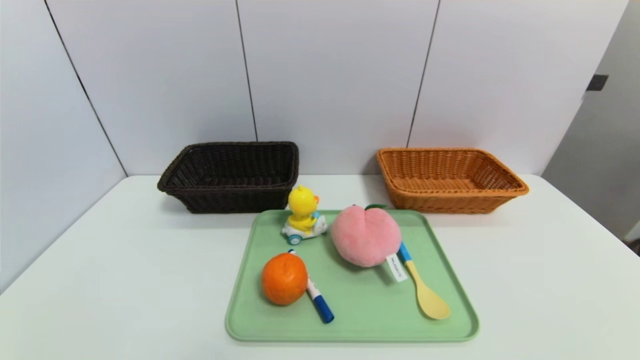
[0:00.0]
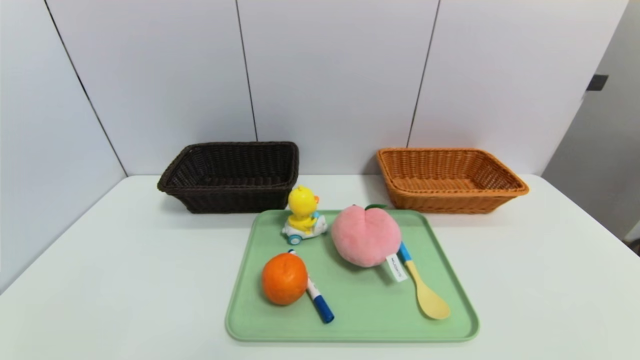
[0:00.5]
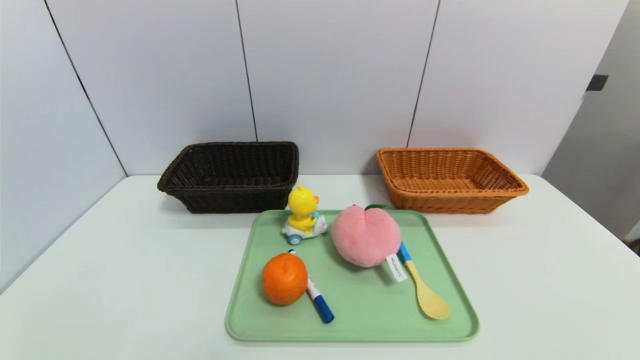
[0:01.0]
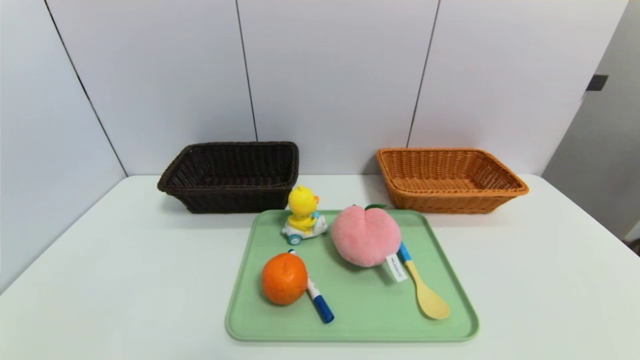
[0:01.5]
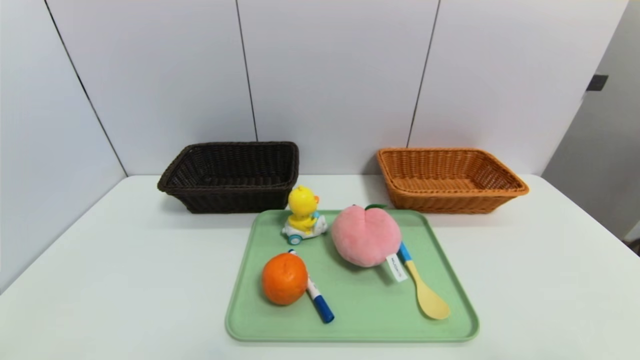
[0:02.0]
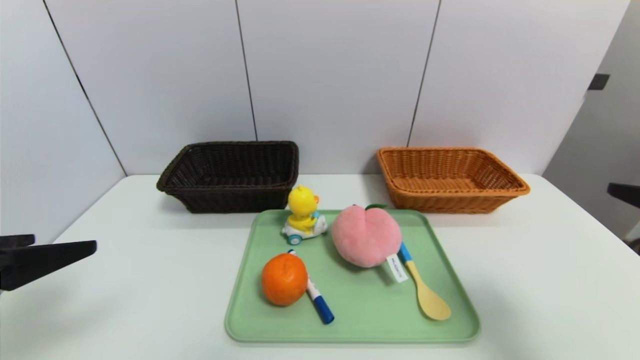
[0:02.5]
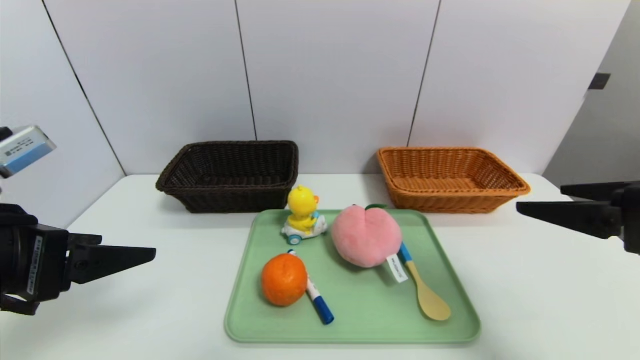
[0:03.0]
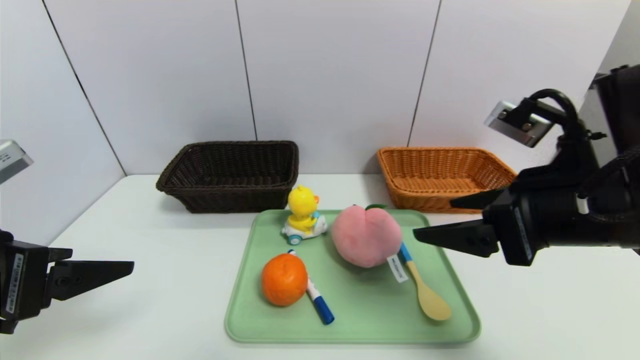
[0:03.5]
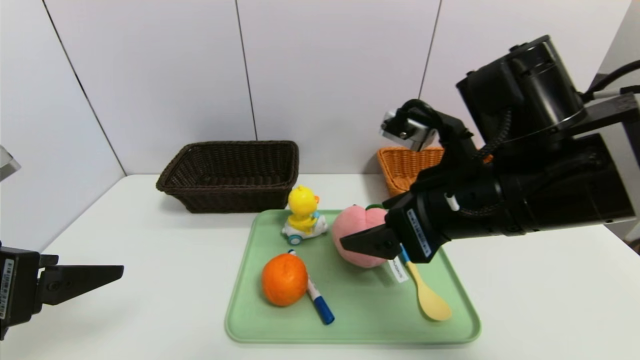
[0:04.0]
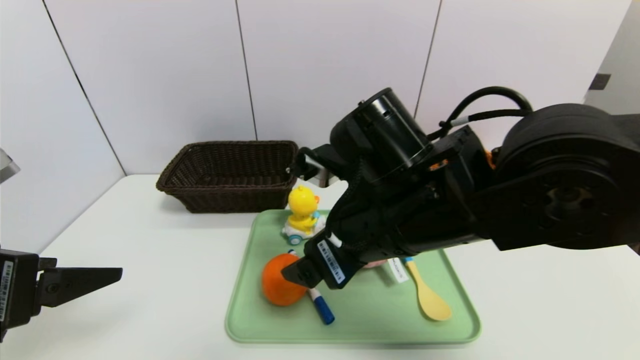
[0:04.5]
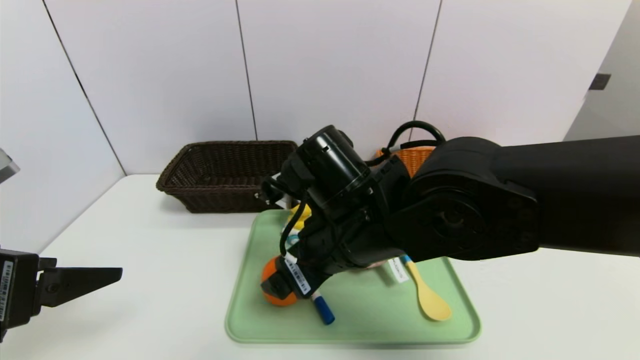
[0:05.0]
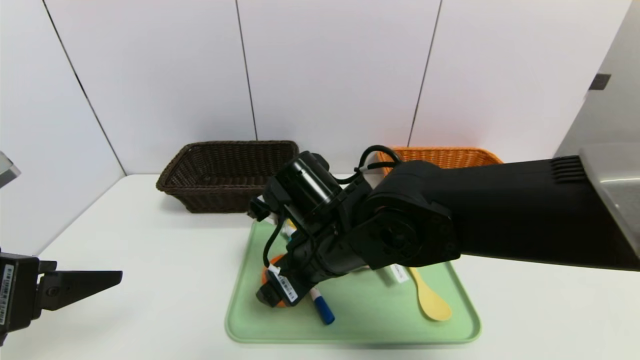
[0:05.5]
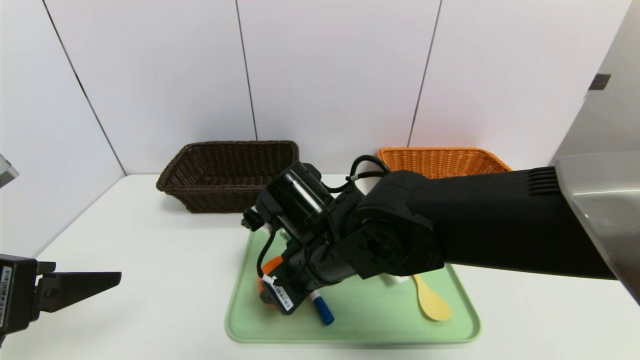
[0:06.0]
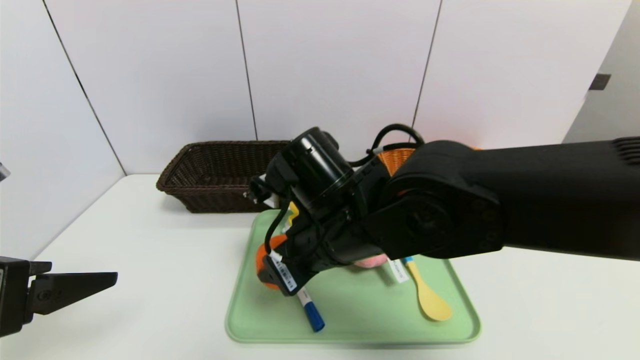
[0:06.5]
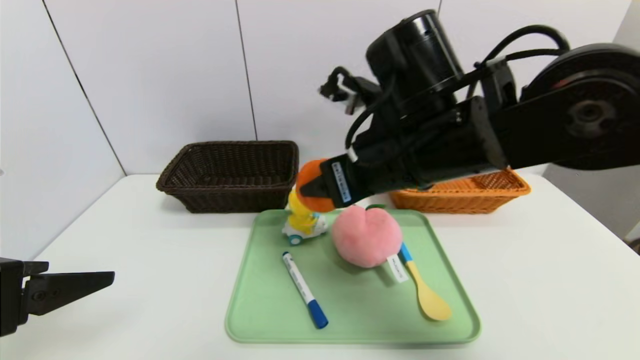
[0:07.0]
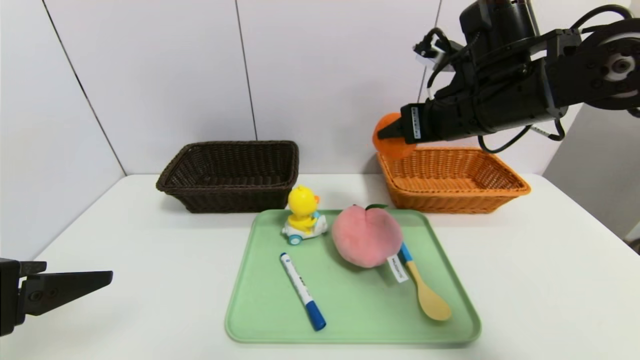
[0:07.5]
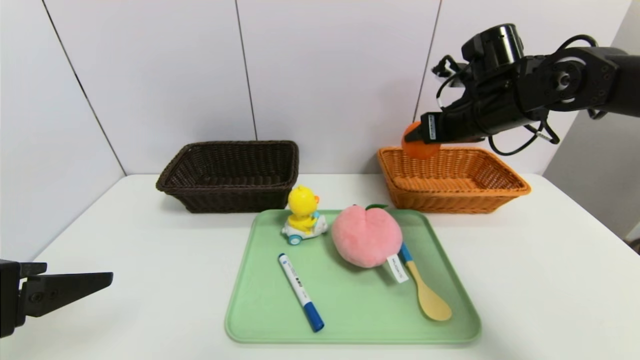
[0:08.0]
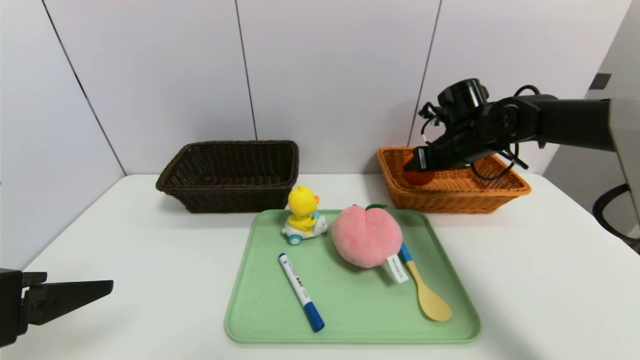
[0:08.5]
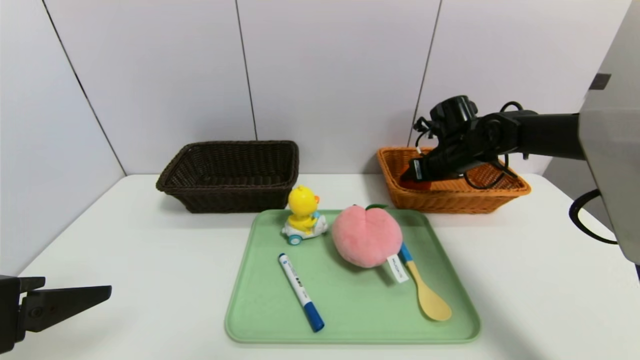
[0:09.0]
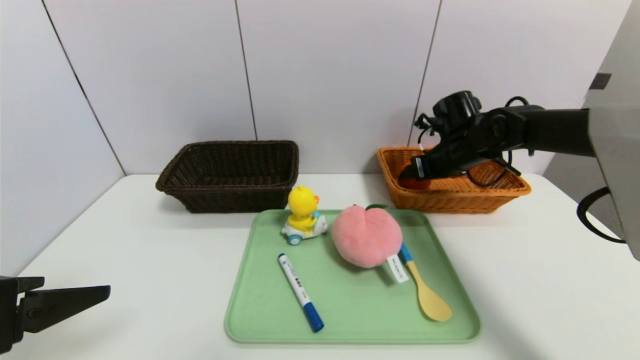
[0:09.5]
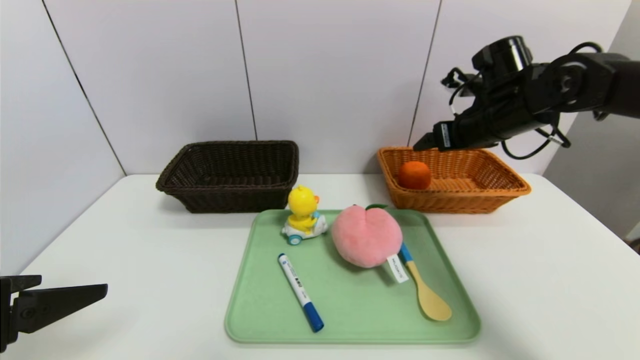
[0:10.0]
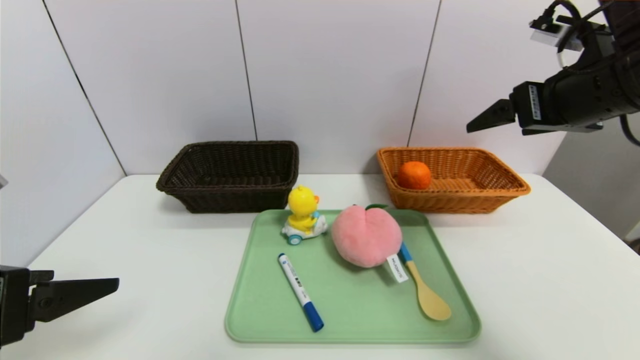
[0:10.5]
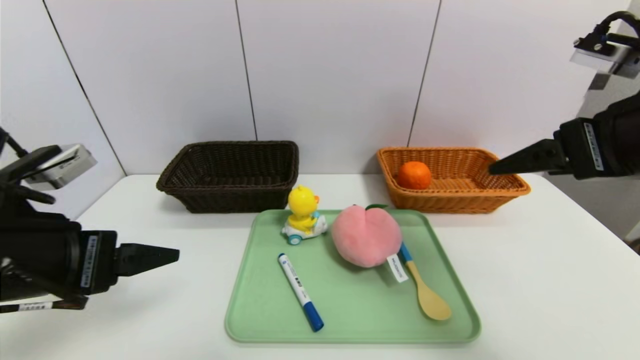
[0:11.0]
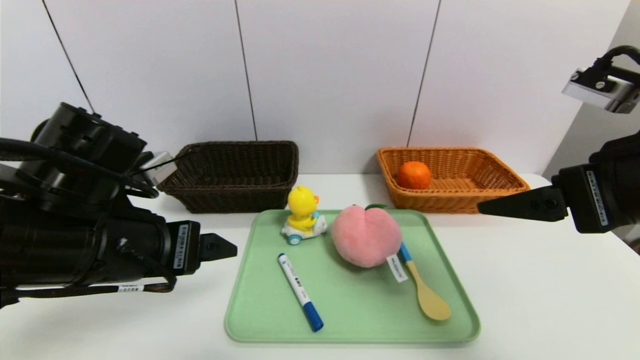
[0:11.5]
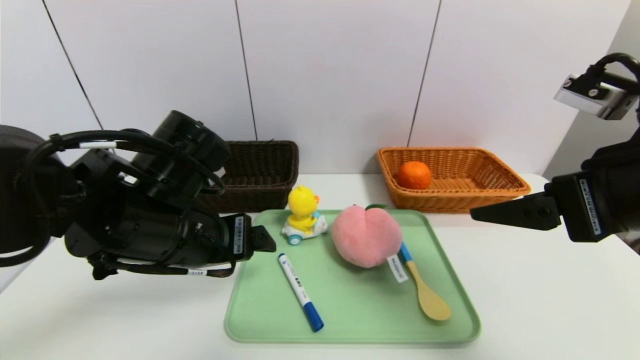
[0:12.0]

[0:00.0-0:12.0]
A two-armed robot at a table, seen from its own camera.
Task of the whole recording: place the food in the right basket with the right gripper, and place the non food items in the left basket with the left gripper.
Step, 0:00.0 to 0:09.5: Grasp the orange and put it in the right basket.
0:02.0 to 0:04.0: The left gripper heads forward, covering about 15 cm. Meanwhile the right gripper heads forward and to the left, covering some 30 cm.
0:04.0 to 0:06.0: The right gripper moves to the left and downward, about 15 cm, and closes up.
0:06.0 to 0:08.0: The right gripper heads to the right, forward and upward, covering about 30 cm.
0:08.0 to 0:10.0: The right gripper moves roughly 10 cm downward and comes back, and opens up.
0:10.0 to 0:12.0: The left gripper shifts roughly 20 cm to the right and forward, while the right gripper heads backward, covering roughly 25 cm.

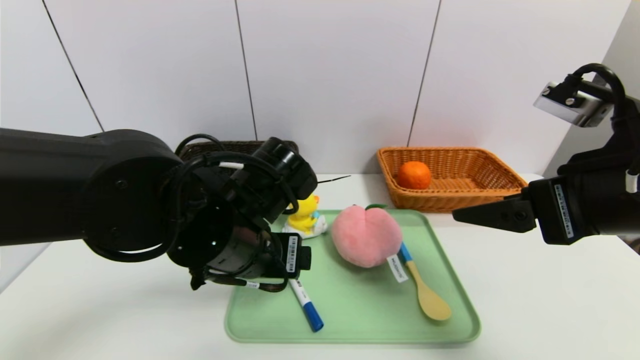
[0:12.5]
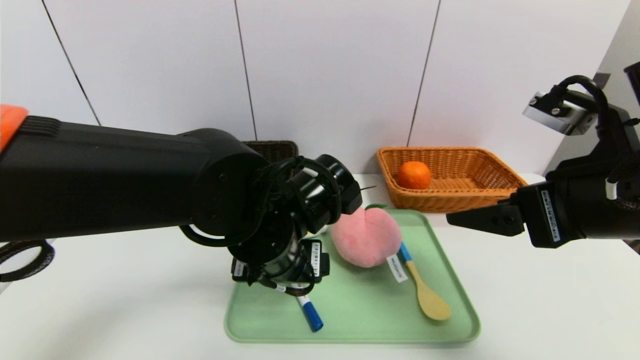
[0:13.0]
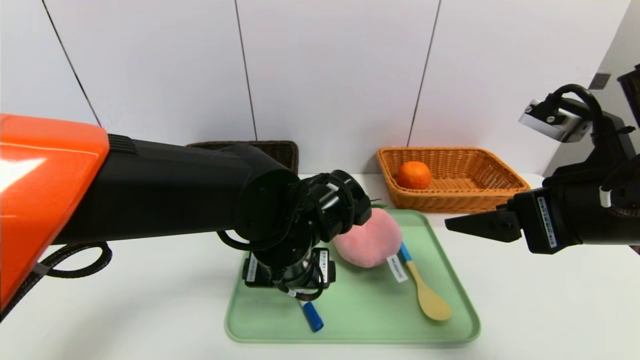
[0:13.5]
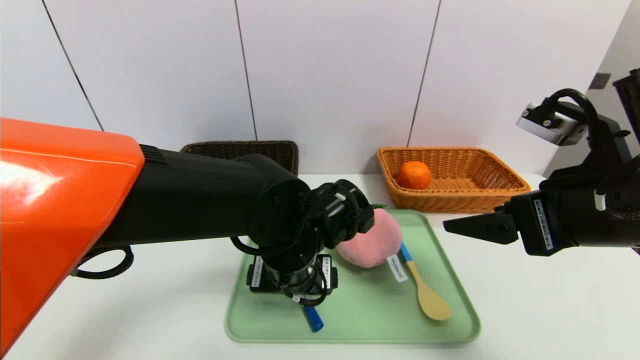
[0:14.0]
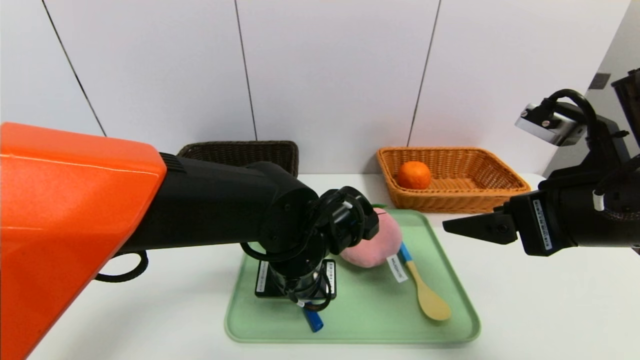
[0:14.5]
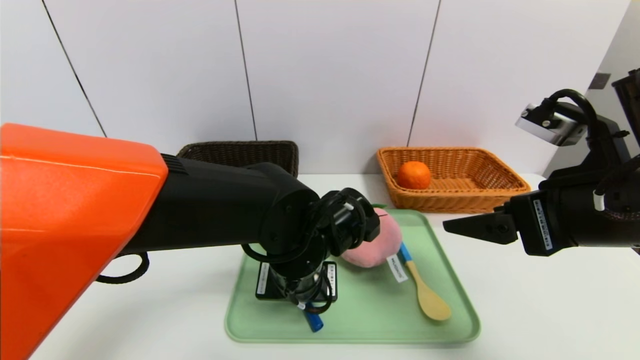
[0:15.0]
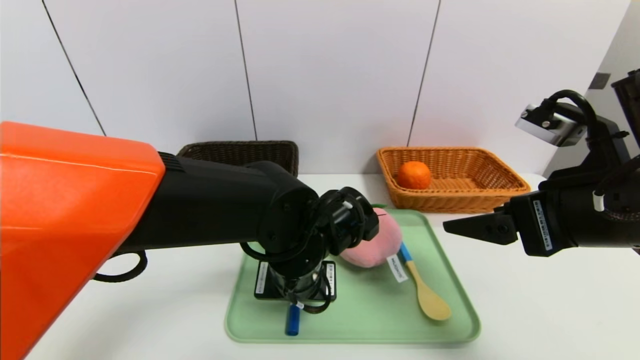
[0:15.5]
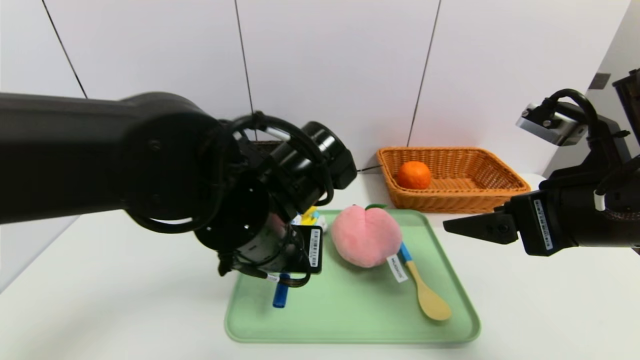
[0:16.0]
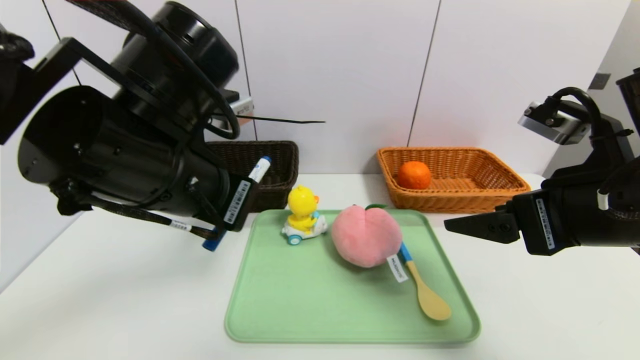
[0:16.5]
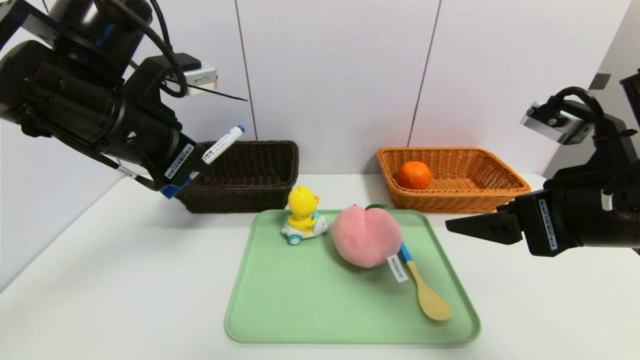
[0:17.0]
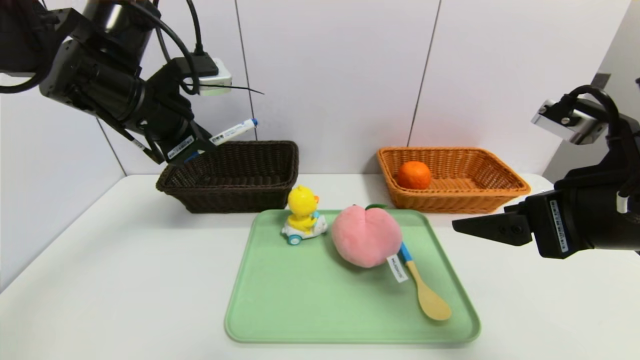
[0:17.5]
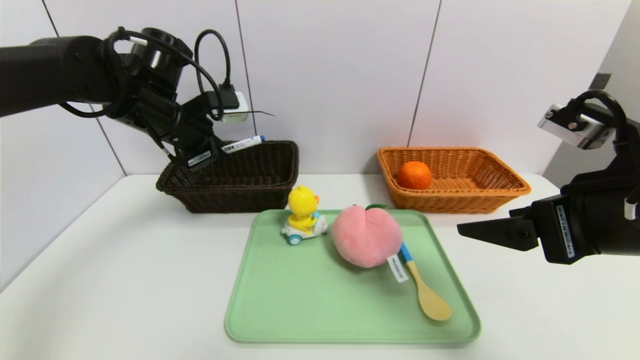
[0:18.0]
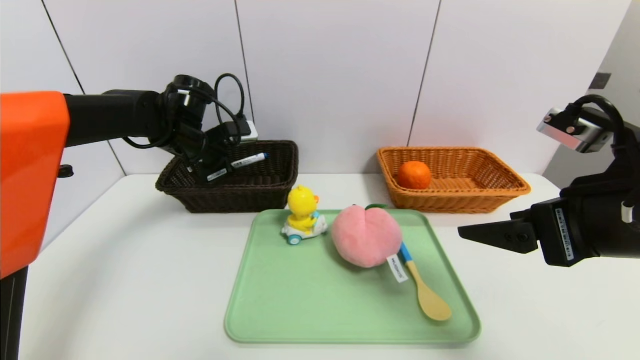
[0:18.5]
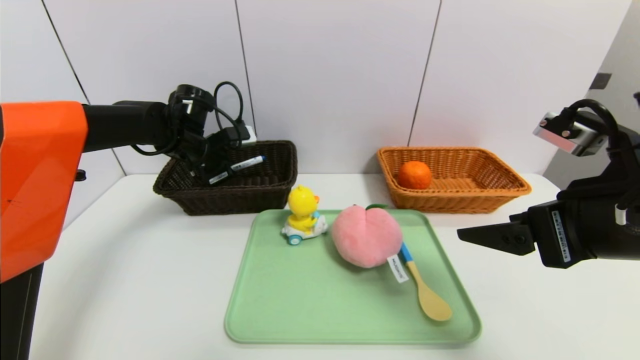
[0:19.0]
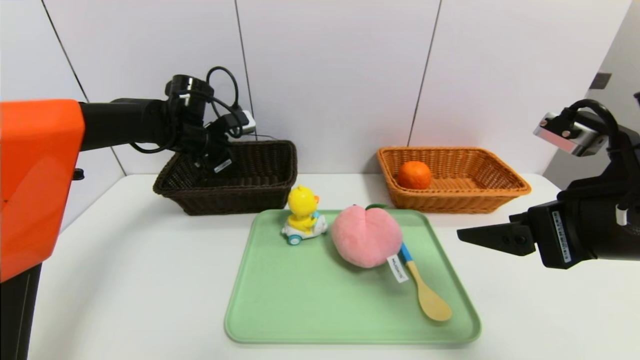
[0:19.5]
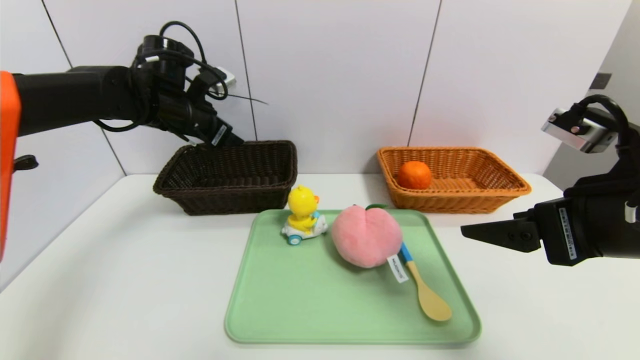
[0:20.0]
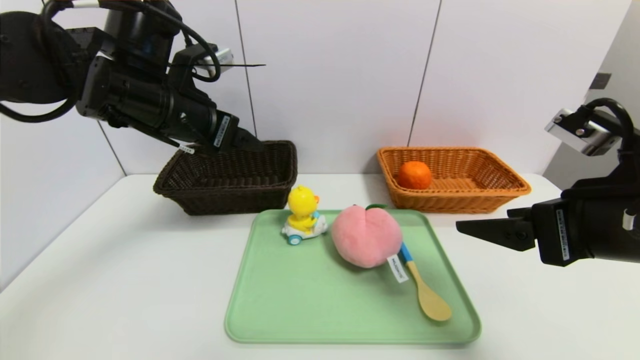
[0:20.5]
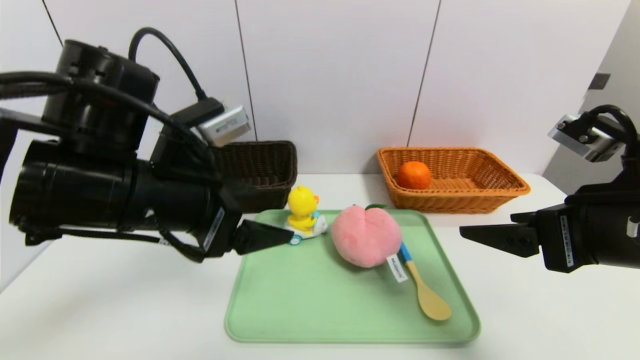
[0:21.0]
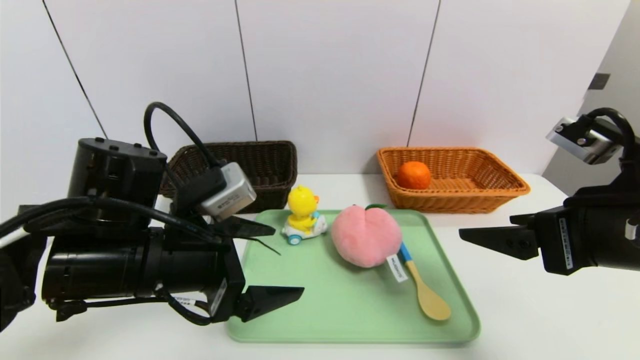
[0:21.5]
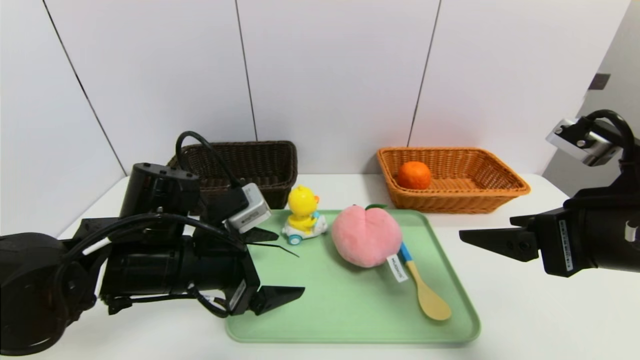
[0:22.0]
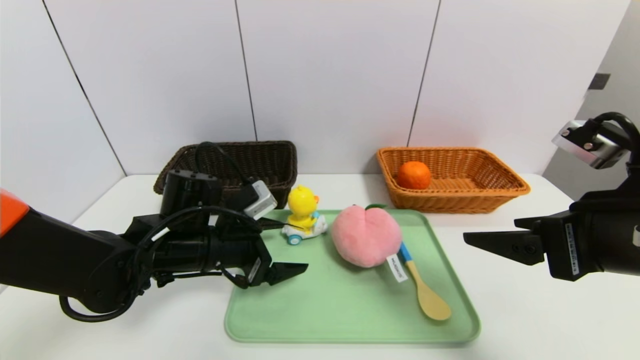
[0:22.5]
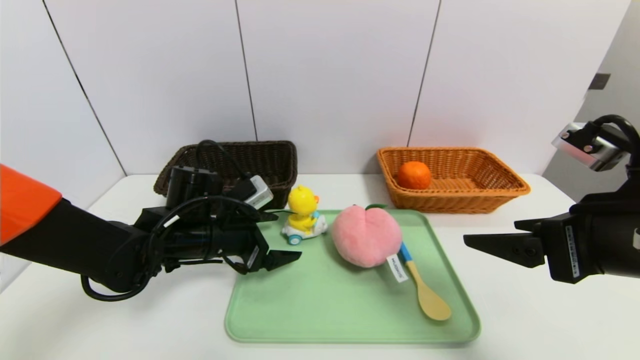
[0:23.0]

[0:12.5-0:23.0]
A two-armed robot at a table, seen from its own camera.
Task of the whole recording: place the food in the right basket with the right gripper, and place the non food items in the left basket with the left gripper.
Step, 0:12.5 to 0:19.5: Grasp the blue marker and put it in the left basket.
0:12.5 to 0:14.5: The left gripper is displaced downward and to the right by some 10 cm.
0:14.5 to 0:16.5: The left gripper is displaced upward and to the left by some 20 cm, and closes its fingers.
0:16.5 to 0:19.0: The left gripper travels forward and downward by approximately 25 cm.
0:19.0 to 0:21.0: The left gripper is displaced backward by approximately 25 cm, and opens its fingers.
0:21.0 to 0:23.0: The left gripper goes approximately 20 cm downward and forward.
